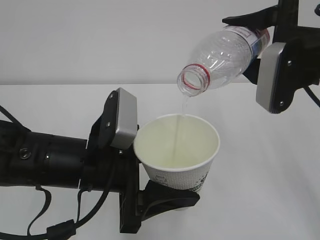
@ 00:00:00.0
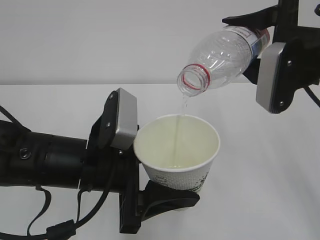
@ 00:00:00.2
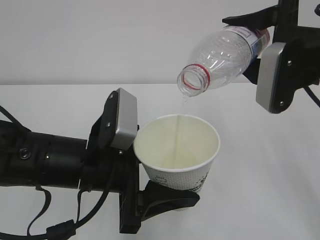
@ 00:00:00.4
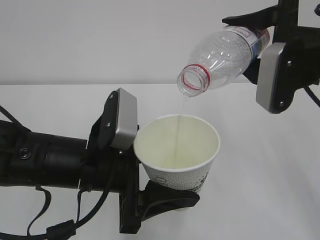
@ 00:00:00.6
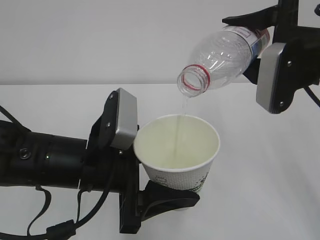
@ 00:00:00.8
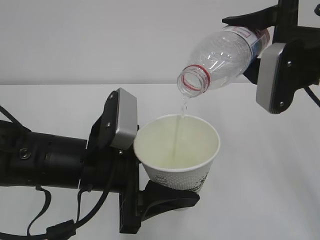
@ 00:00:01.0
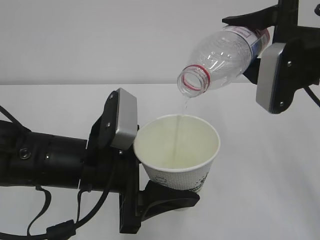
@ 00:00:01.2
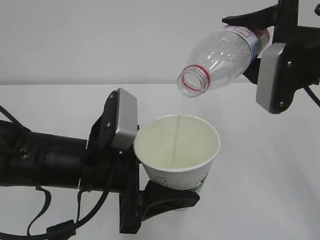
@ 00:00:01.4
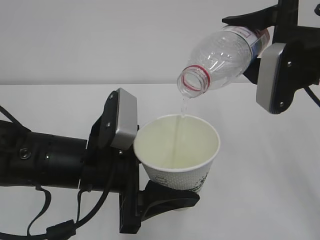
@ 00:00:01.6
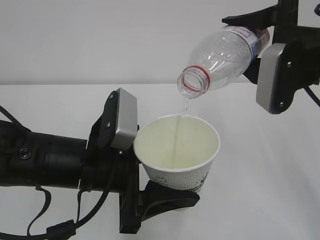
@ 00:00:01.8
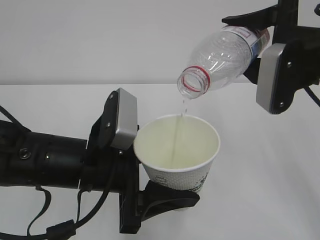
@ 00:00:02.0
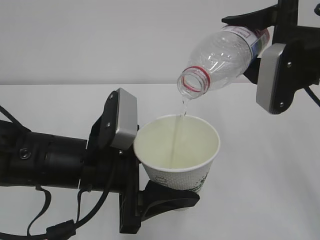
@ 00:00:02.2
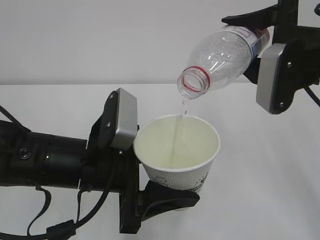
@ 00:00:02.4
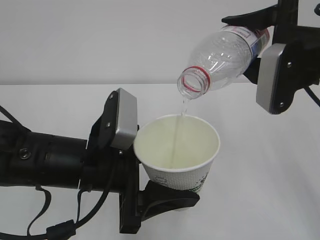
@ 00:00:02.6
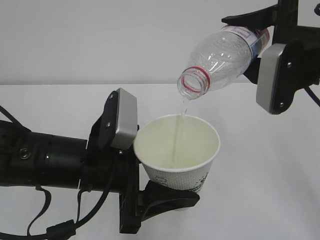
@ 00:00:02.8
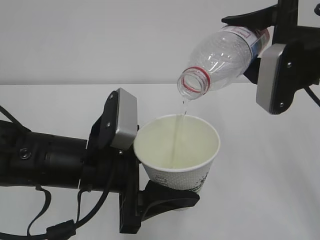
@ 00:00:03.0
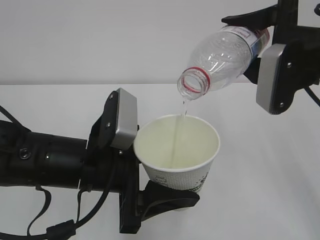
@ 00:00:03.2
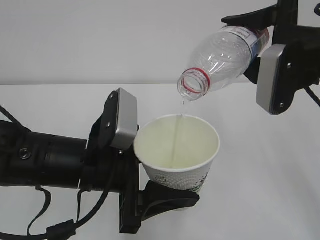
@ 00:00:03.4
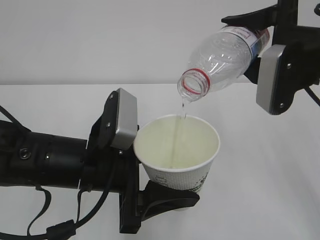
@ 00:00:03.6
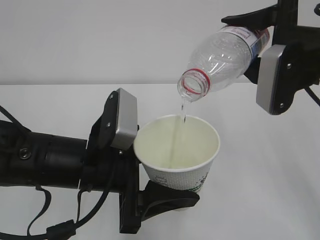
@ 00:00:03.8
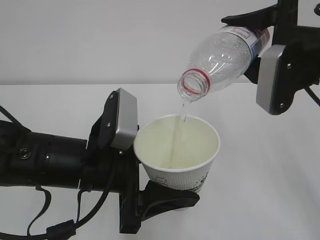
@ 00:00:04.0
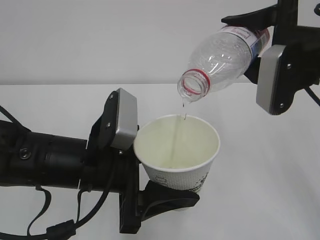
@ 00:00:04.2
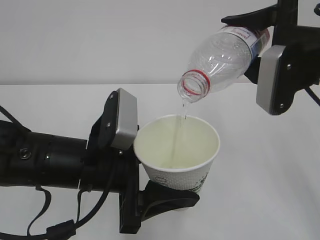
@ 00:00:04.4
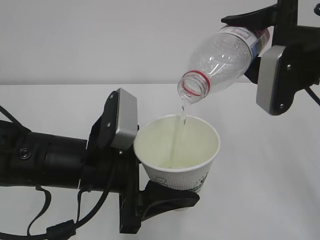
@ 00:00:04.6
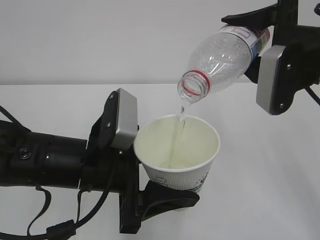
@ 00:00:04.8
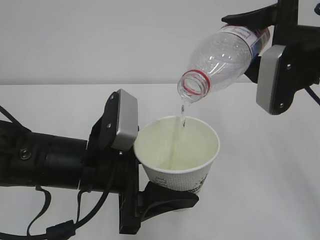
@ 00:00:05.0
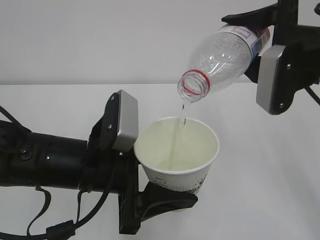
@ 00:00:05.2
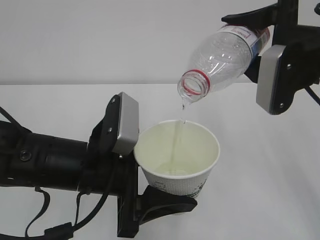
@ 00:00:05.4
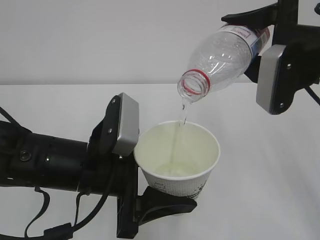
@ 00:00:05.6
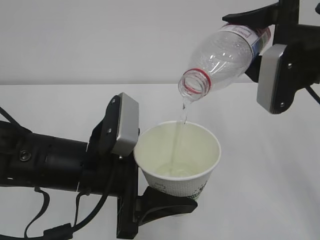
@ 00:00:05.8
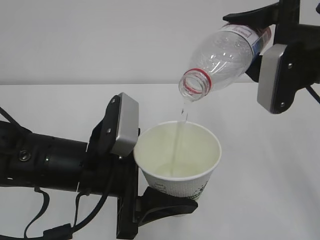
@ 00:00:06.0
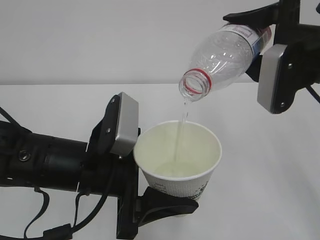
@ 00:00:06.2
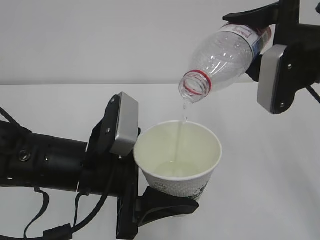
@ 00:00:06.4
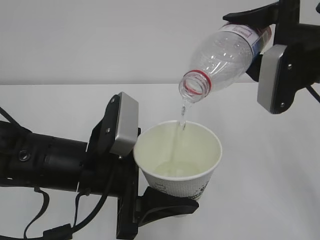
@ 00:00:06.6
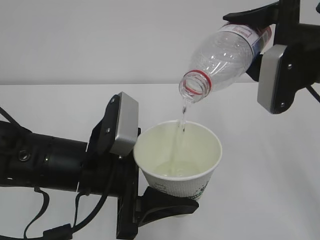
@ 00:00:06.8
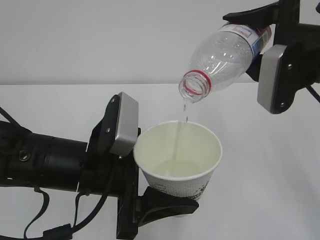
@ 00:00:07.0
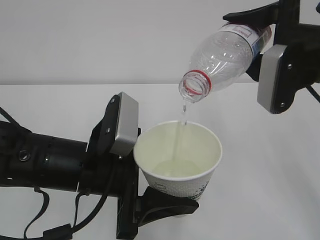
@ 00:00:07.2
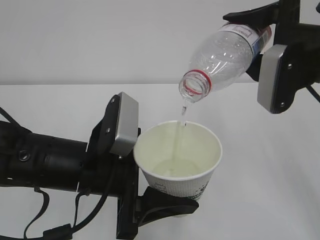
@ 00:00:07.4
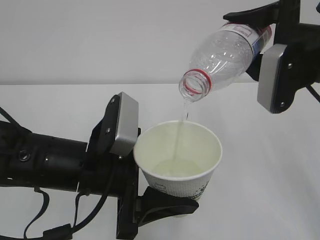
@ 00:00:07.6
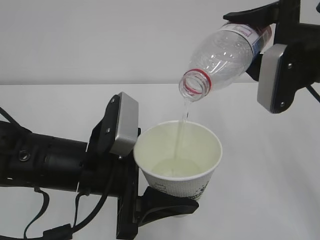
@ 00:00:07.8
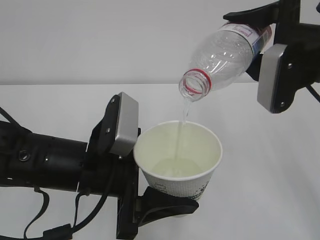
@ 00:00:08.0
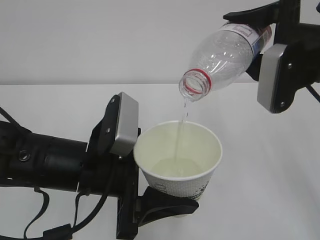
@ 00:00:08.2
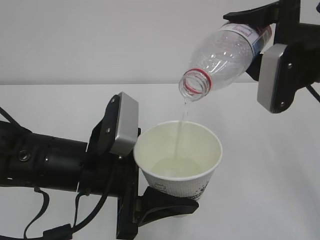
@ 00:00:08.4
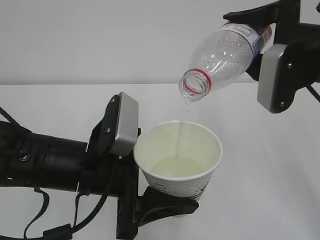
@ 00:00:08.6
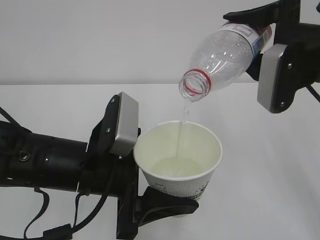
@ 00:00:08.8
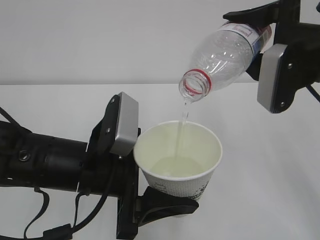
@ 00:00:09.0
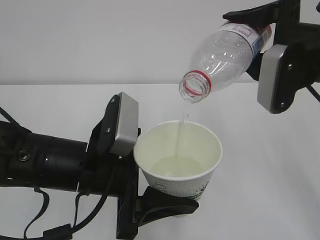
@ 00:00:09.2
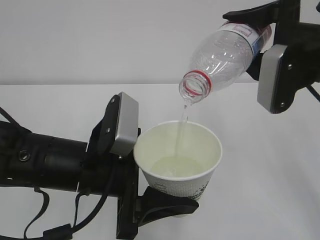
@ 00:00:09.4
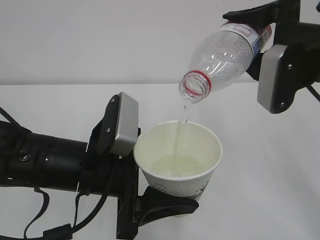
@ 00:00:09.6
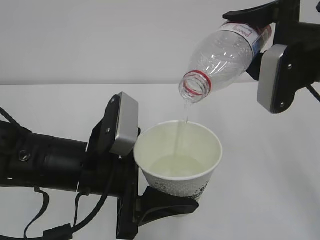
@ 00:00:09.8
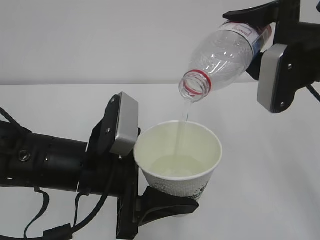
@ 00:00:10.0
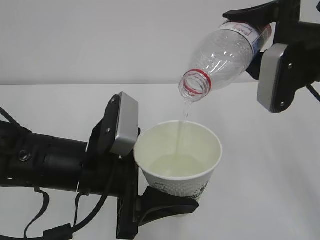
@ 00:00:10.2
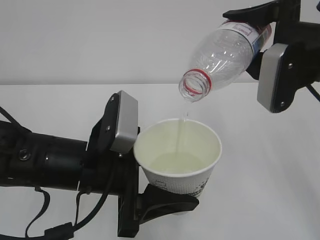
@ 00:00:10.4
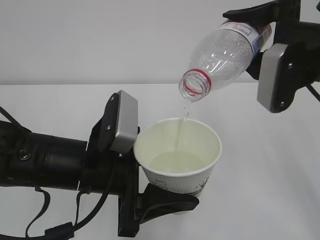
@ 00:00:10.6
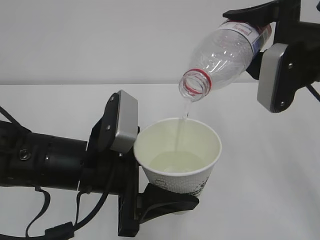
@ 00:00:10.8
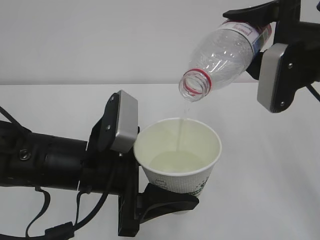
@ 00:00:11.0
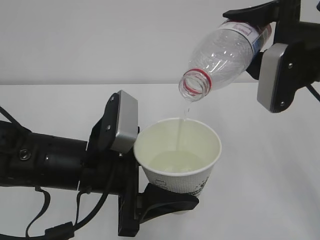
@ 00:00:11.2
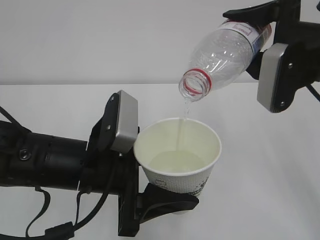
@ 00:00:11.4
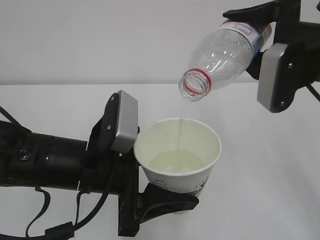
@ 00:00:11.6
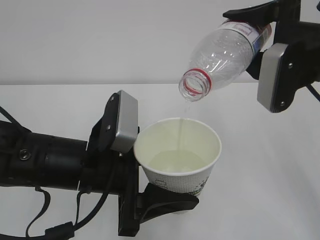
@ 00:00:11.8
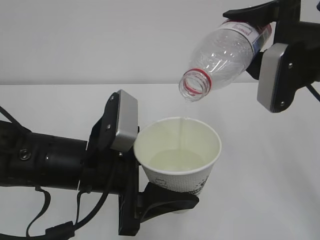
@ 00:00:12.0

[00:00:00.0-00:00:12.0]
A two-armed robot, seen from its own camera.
00:00:00.0 to 00:00:09.0: Both grippers stay put.
00:00:09.0 to 00:00:12.0: Both grippers stay put.

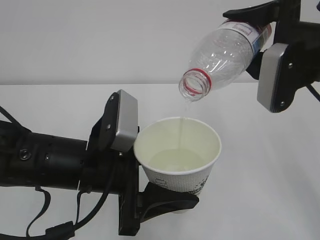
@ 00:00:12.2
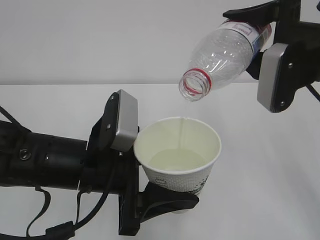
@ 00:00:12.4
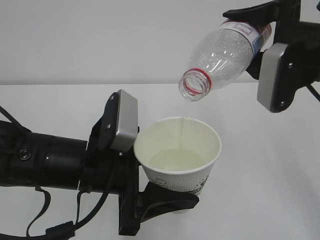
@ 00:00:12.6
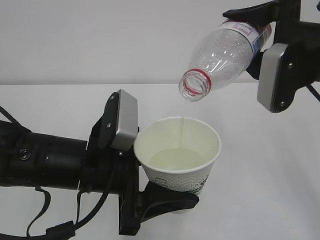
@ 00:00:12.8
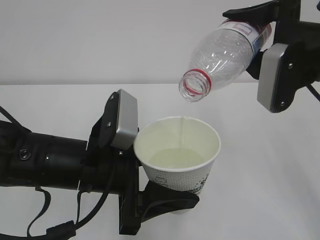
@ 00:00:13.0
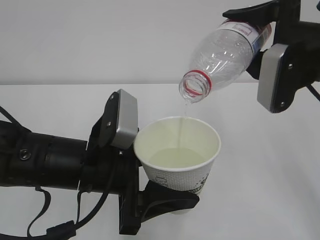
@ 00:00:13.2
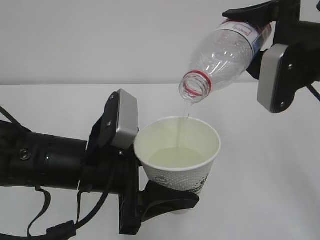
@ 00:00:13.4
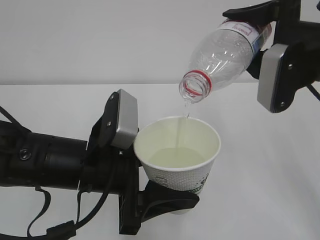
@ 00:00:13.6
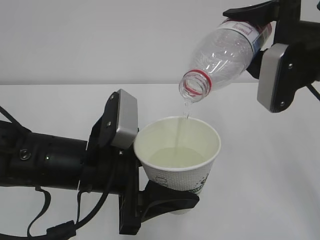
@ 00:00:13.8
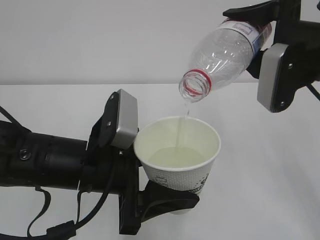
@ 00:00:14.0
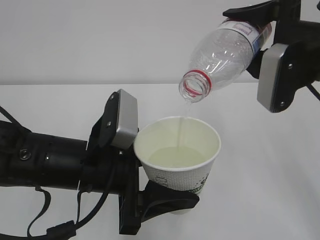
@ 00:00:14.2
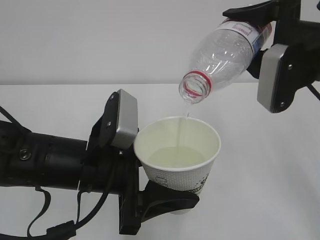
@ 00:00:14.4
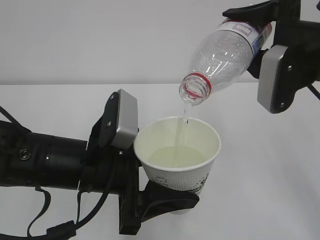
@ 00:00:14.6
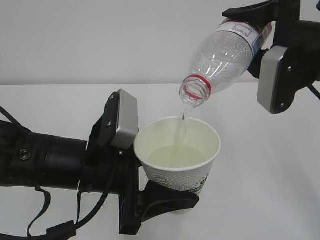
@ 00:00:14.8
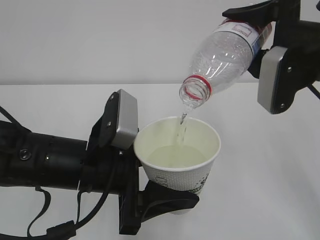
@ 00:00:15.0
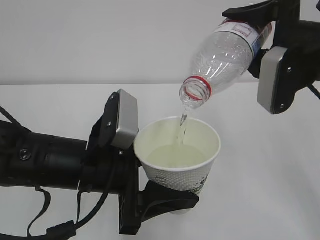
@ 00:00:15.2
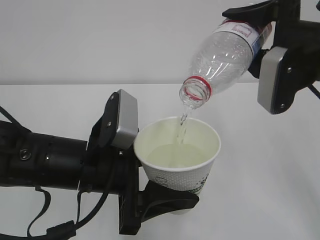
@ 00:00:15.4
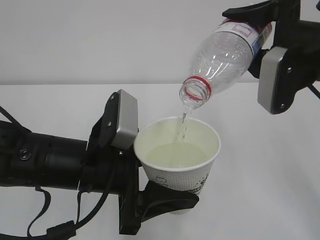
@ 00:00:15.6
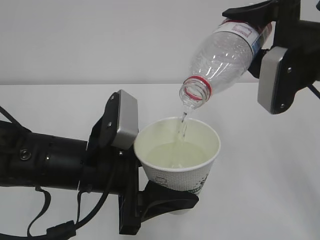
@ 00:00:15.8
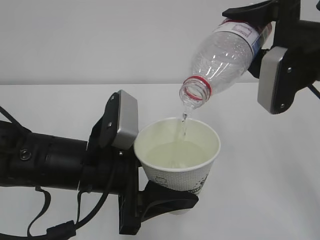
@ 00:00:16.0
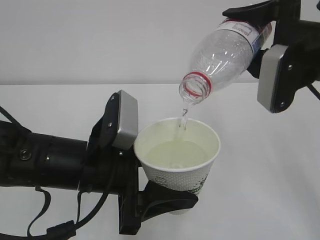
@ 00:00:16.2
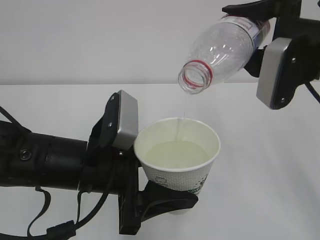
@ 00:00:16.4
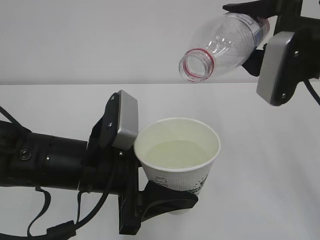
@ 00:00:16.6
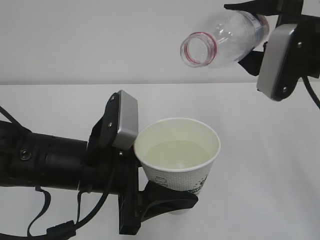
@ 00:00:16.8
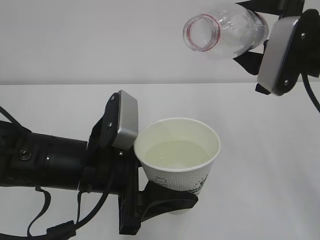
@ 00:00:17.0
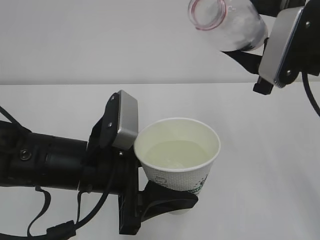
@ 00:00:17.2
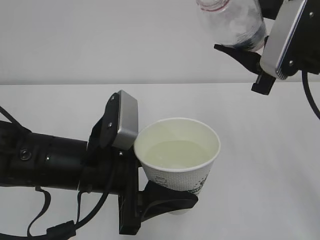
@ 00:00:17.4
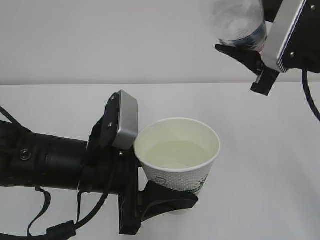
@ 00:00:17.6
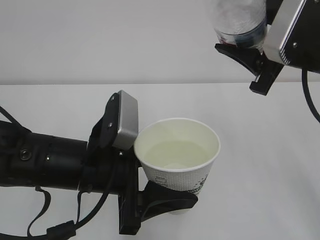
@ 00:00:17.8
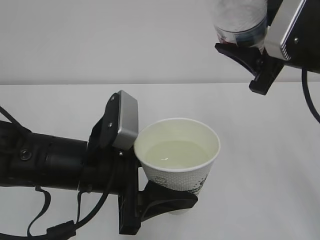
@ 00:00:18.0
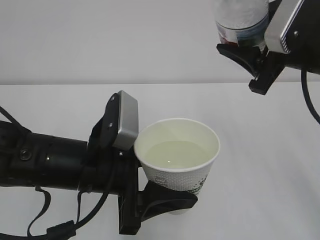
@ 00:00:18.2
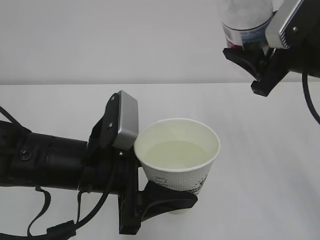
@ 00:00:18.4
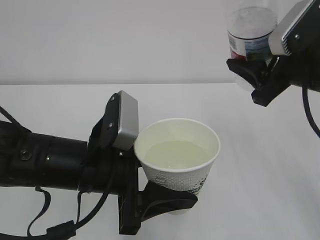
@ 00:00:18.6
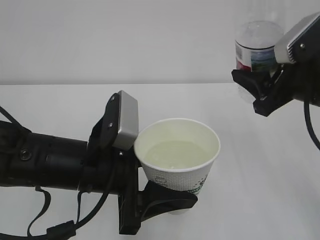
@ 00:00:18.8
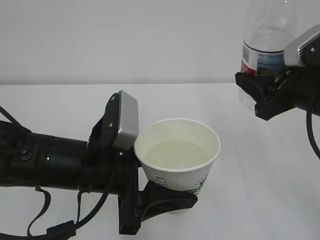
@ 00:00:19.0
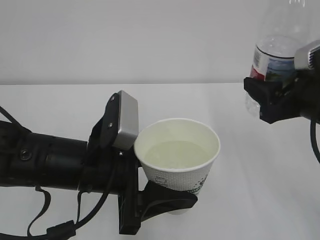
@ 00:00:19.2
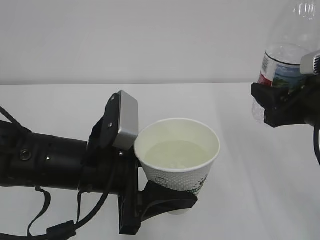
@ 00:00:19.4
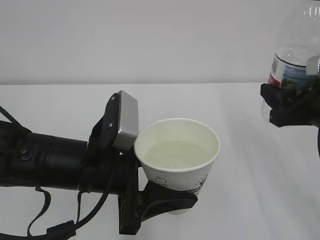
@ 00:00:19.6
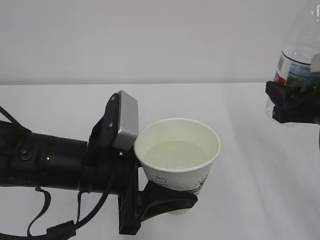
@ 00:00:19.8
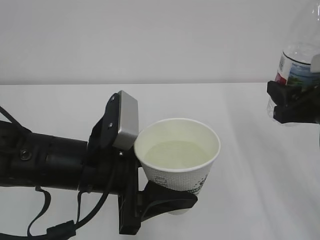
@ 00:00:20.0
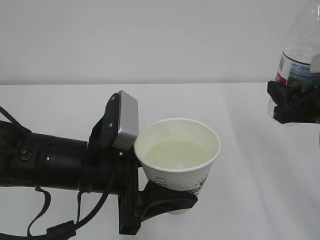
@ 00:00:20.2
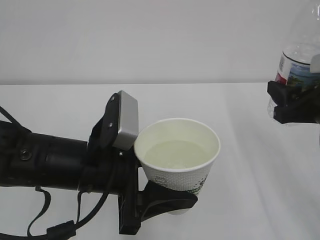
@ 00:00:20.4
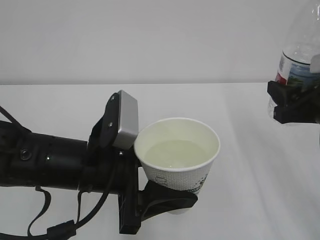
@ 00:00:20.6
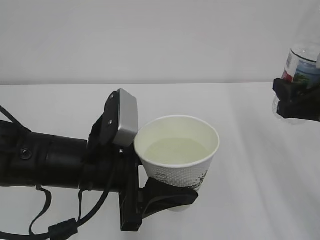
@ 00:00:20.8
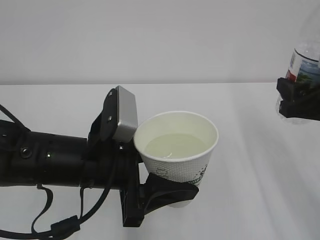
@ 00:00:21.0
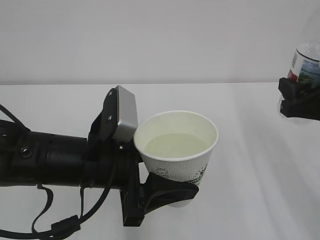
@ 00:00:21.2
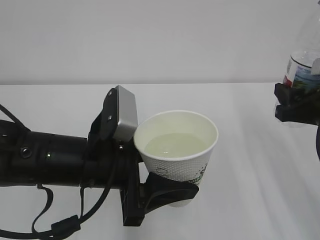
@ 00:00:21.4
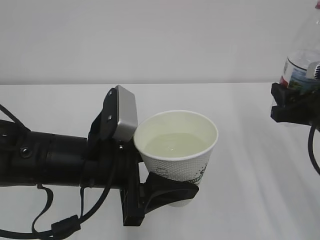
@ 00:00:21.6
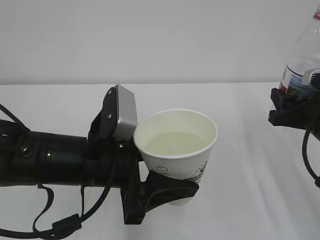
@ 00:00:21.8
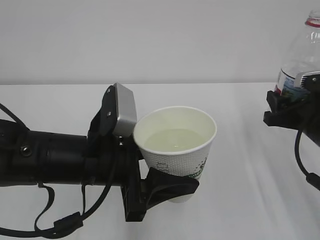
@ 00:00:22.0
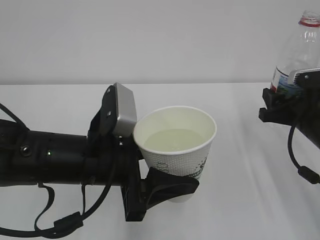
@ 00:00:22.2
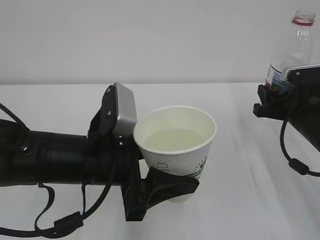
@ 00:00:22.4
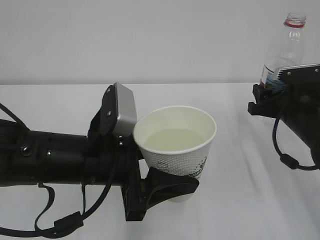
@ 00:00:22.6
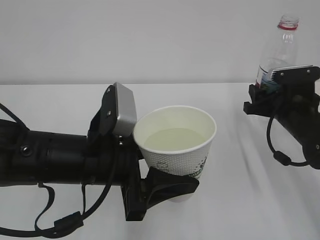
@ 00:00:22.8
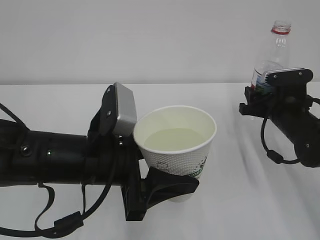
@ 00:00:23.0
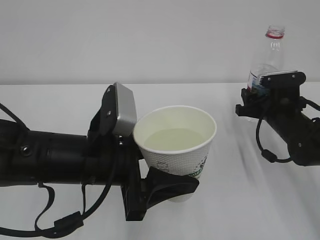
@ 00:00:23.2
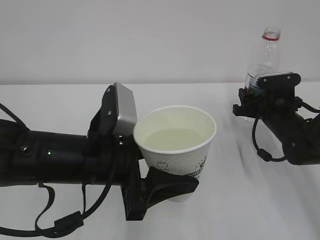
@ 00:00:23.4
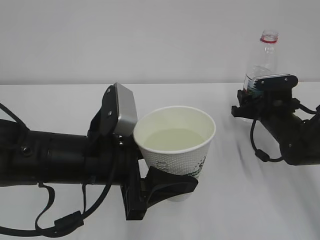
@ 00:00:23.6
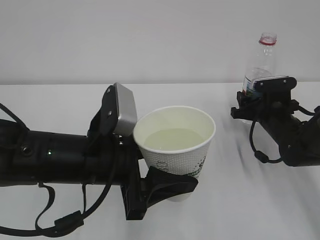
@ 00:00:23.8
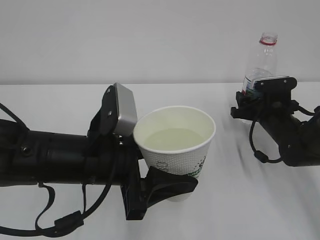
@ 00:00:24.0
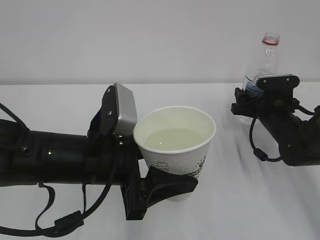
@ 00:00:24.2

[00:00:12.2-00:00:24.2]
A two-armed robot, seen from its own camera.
00:00:12.2 to 00:00:15.2: Neither gripper changes place.
00:00:15.2 to 00:00:16.6: The grippers stay close to where they were, moving slightly.
00:00:18.2 to 00:00:19.8: The right gripper heads downward, covering some 10 cm.
00:00:19.8 to 00:00:21.2: There are only small adjustments of the grippers.
00:00:21.2 to 00:00:22.6: The right gripper travels forward and downward by about 10 cm.
00:00:22.6 to 00:00:24.2: The right gripper is displaced forward and downward by about 10 cm, and opens.
